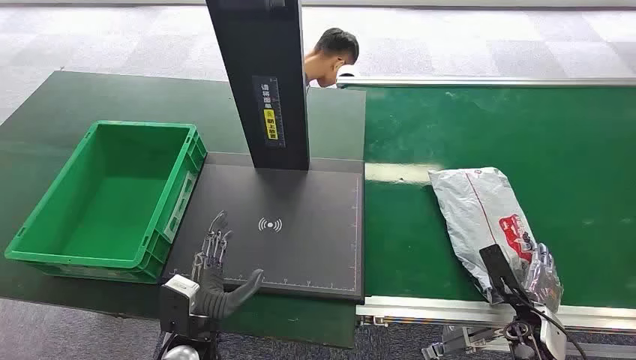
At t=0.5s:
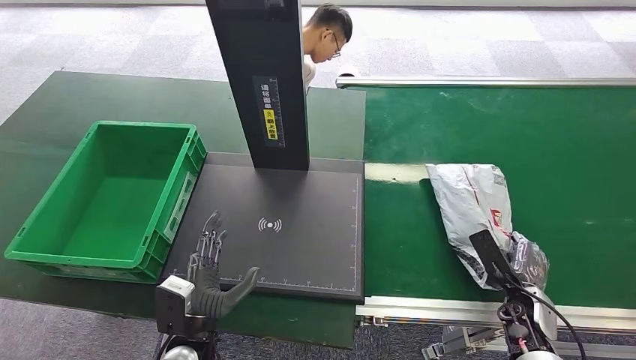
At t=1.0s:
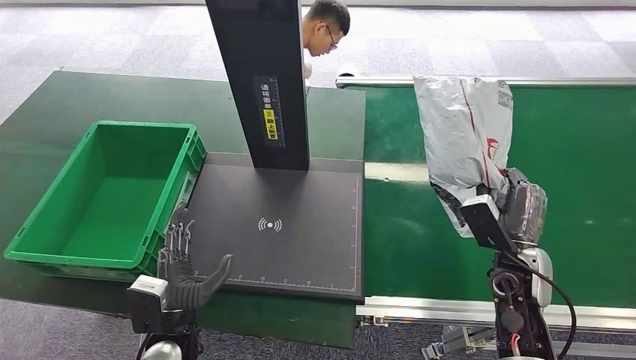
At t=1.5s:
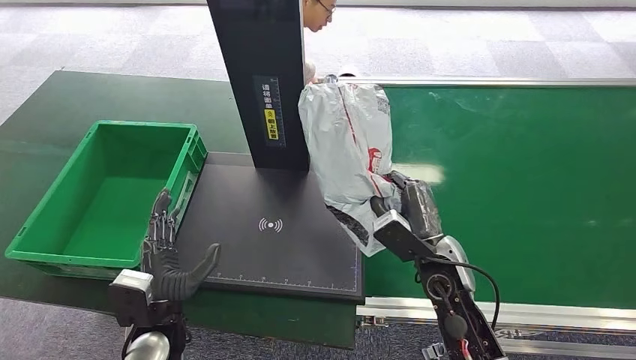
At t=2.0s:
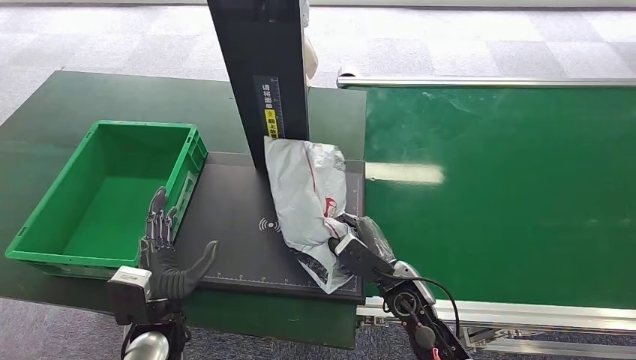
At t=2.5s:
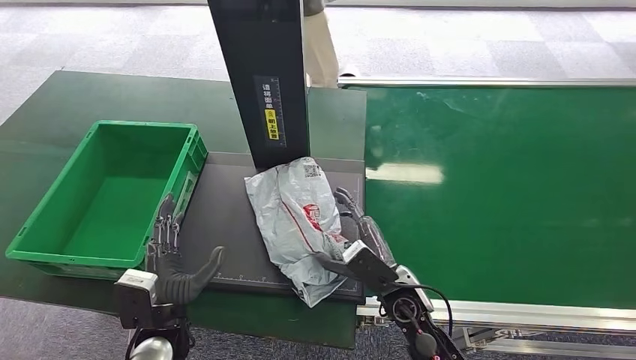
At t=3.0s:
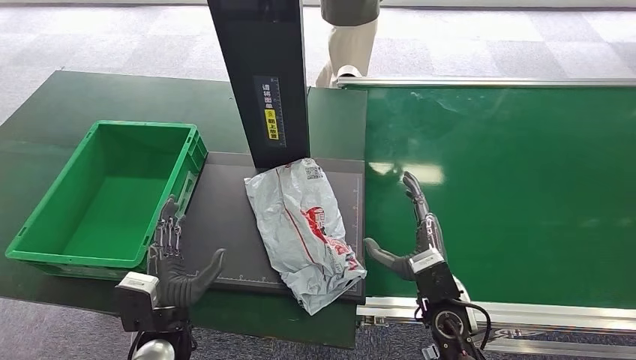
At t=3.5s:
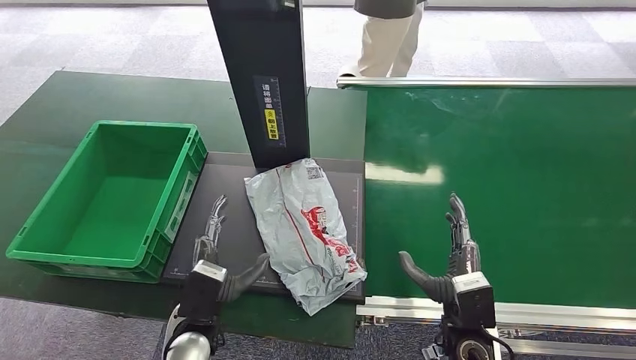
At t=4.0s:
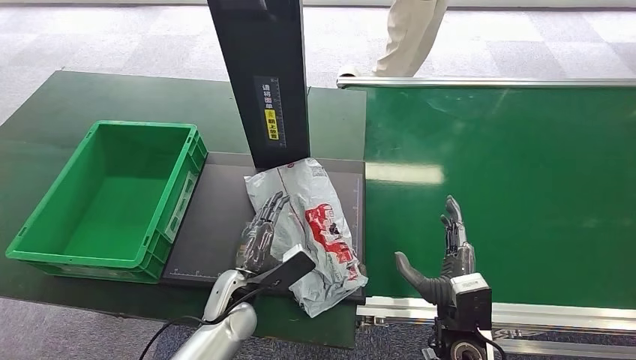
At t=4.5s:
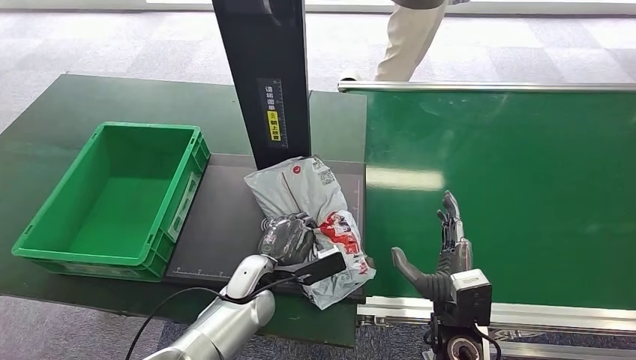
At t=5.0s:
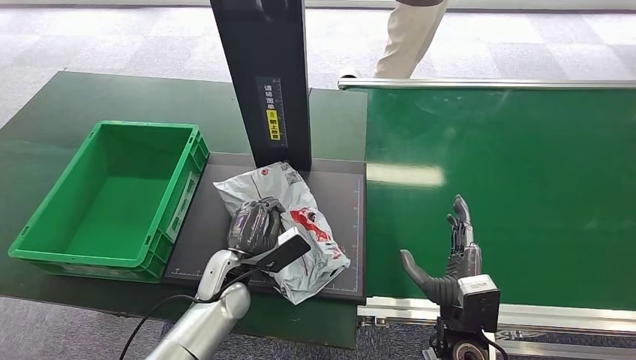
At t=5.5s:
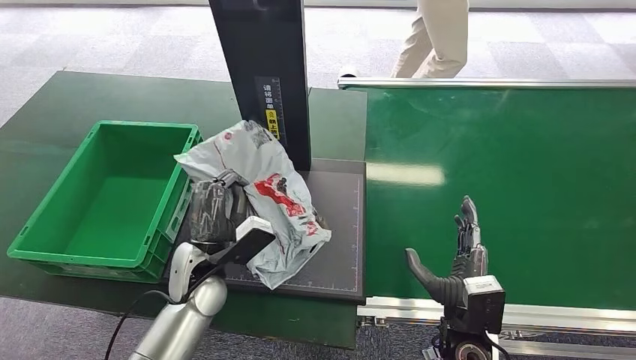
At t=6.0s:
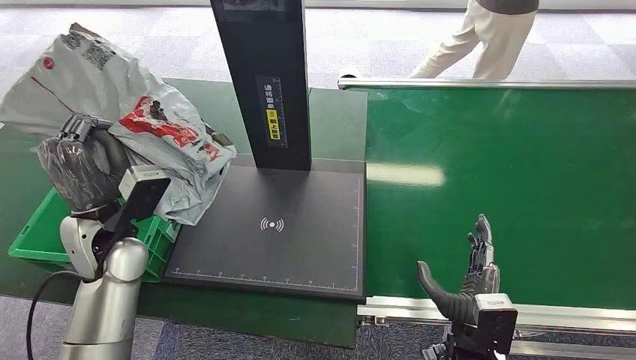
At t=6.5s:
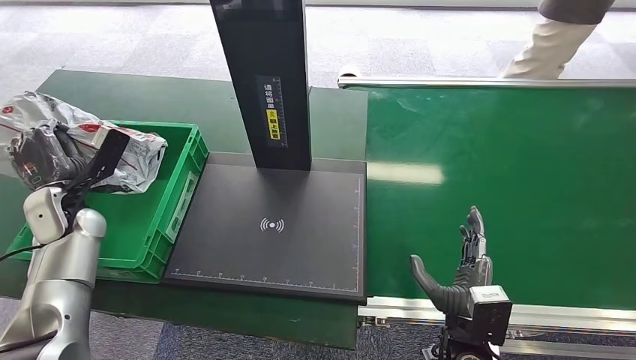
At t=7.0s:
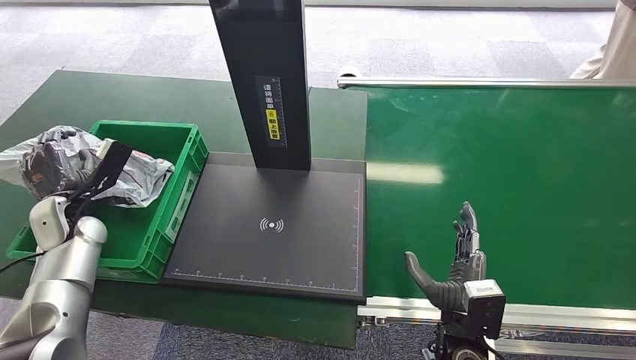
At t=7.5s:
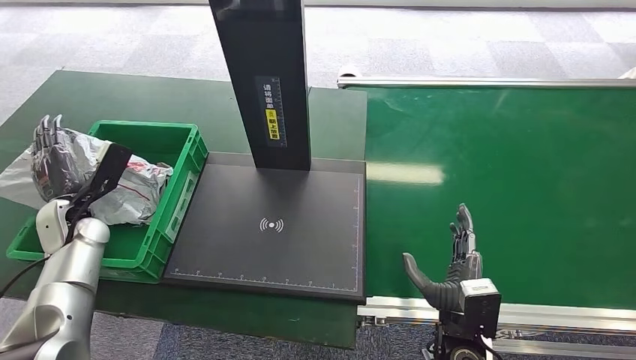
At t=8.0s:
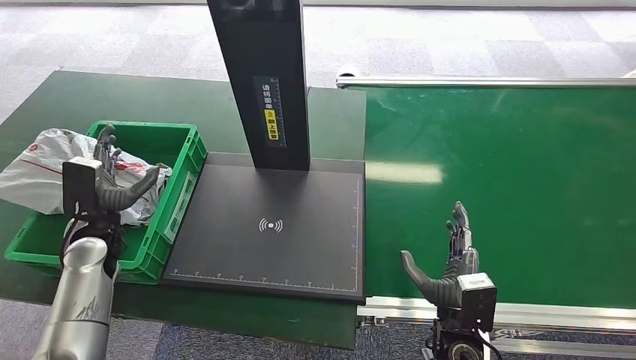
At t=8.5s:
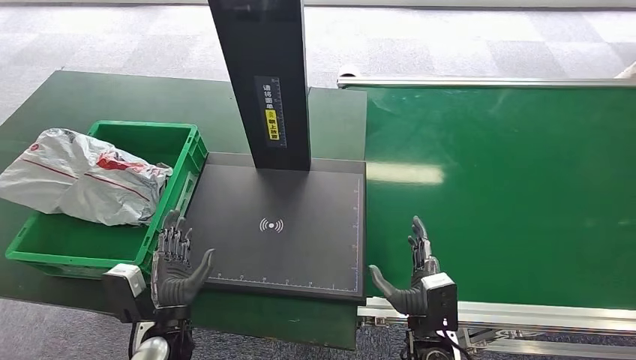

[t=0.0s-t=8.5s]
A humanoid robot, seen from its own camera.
Step, t=0.0s to t=1.5s: Pick up the package from the conveyor belt.
Step, t=2.0s to t=4.0s: Place the package onto the inbound machine.
Step, t=4.5s to t=6.0s: Pick up the package from the inbound machine.
Step, t=6.5s to t=8.5s: Place the package into the parcel locker.
t=2.0s to t=4.0s: The left hand heads to the right and forward, covering approximately 10 cm, while the right hand moves backward and to the right, approximately 10 cm.
